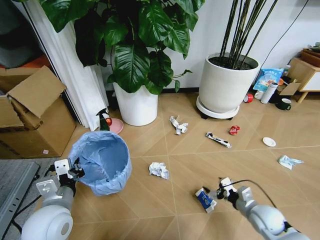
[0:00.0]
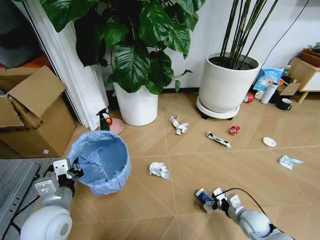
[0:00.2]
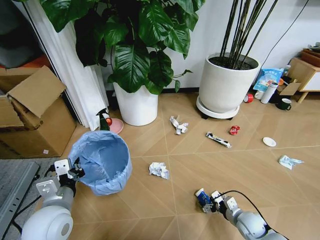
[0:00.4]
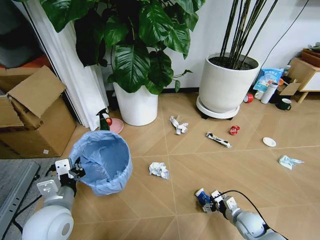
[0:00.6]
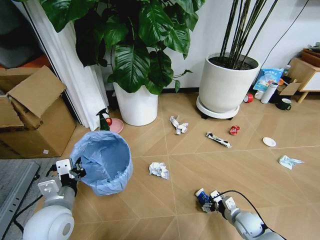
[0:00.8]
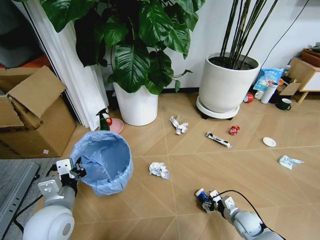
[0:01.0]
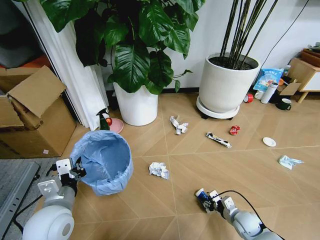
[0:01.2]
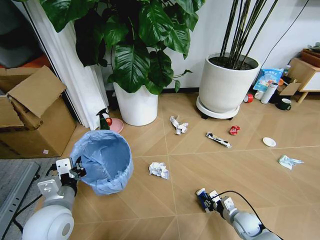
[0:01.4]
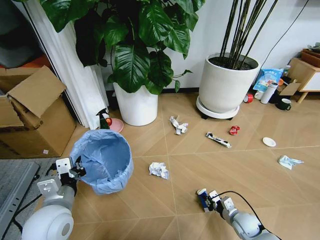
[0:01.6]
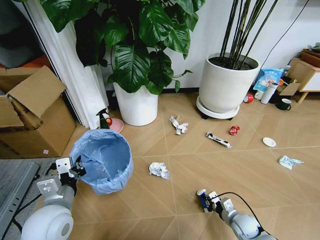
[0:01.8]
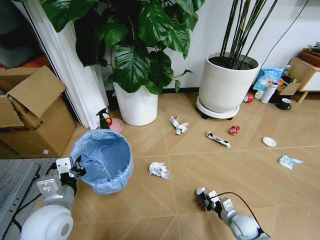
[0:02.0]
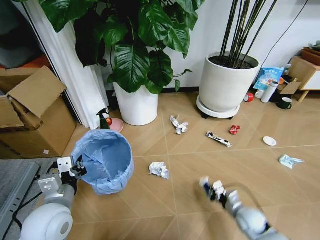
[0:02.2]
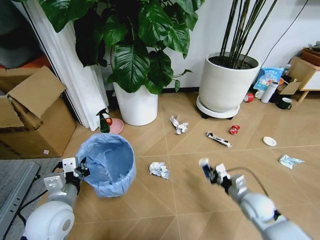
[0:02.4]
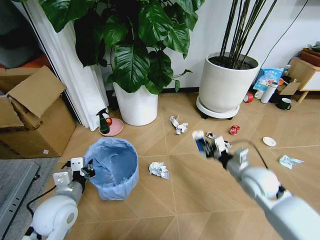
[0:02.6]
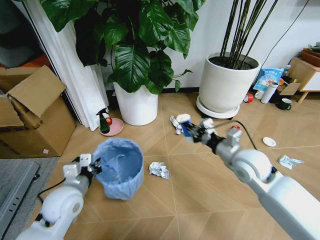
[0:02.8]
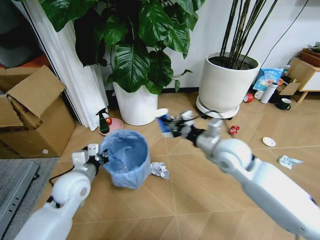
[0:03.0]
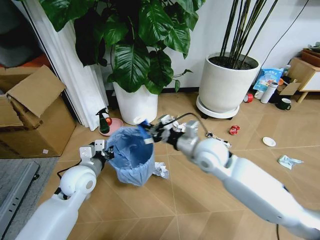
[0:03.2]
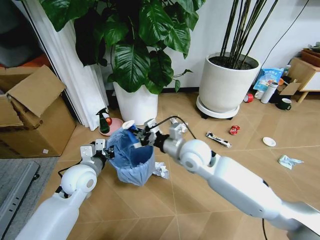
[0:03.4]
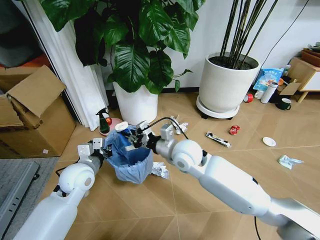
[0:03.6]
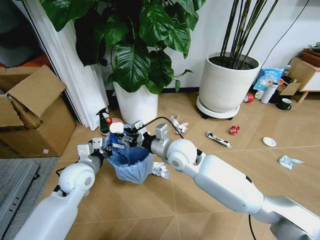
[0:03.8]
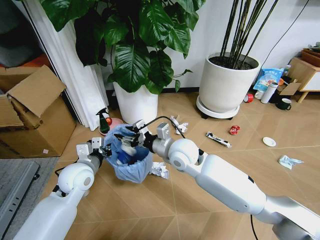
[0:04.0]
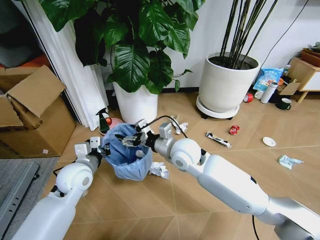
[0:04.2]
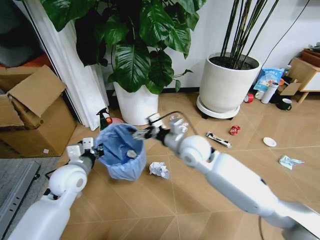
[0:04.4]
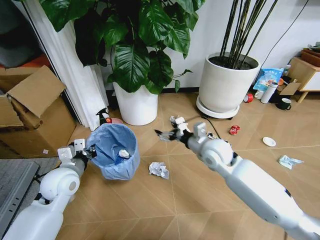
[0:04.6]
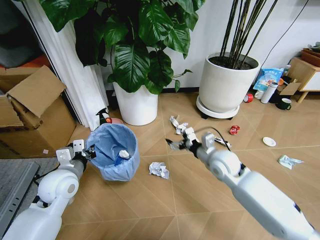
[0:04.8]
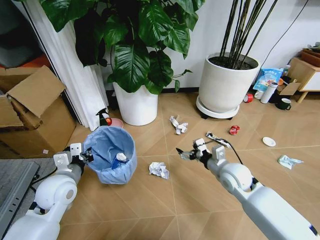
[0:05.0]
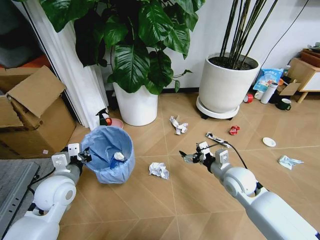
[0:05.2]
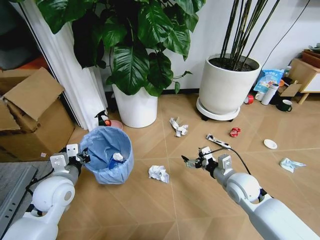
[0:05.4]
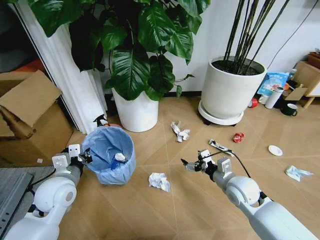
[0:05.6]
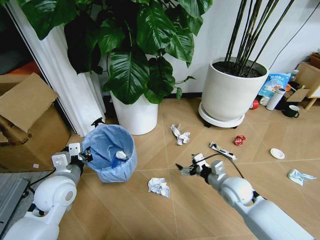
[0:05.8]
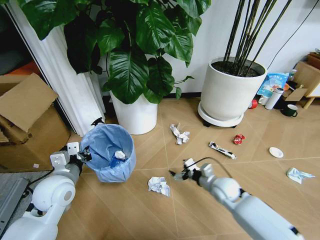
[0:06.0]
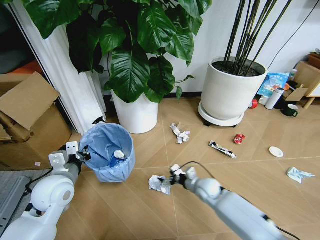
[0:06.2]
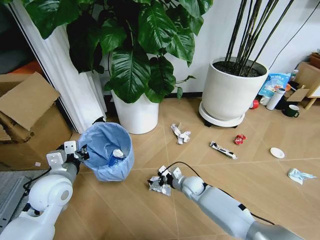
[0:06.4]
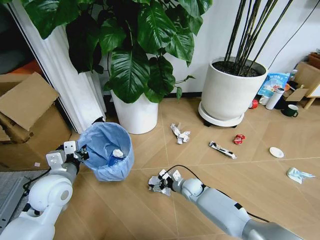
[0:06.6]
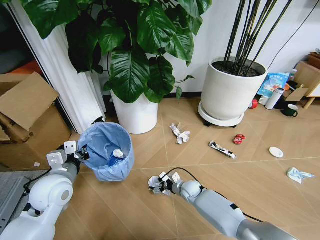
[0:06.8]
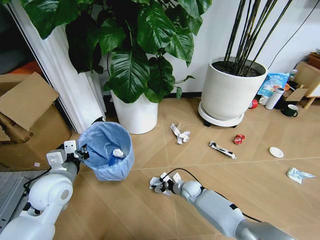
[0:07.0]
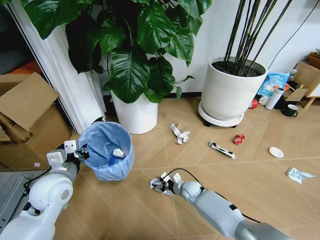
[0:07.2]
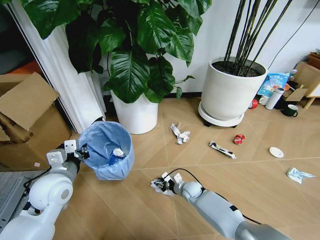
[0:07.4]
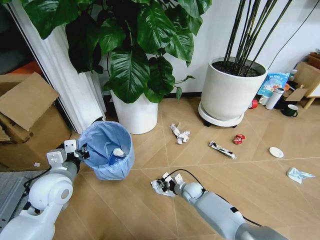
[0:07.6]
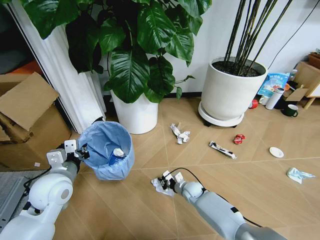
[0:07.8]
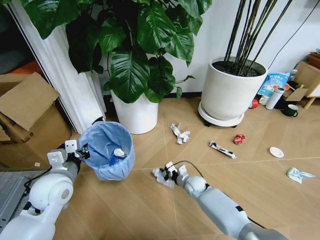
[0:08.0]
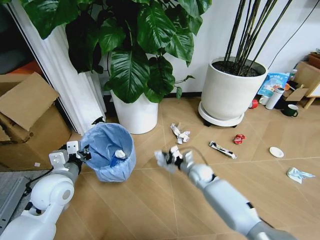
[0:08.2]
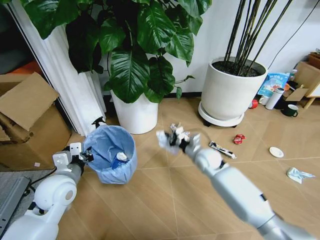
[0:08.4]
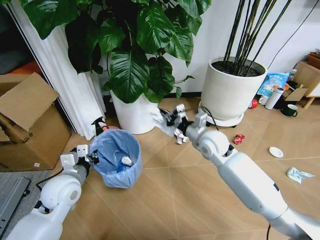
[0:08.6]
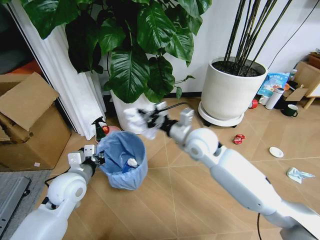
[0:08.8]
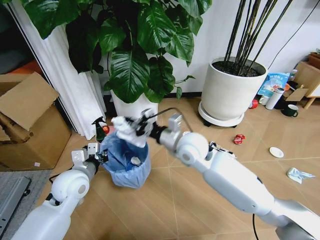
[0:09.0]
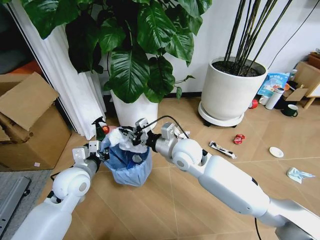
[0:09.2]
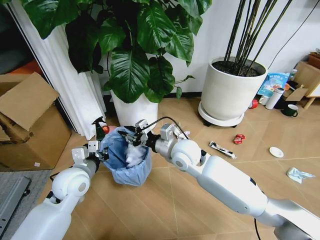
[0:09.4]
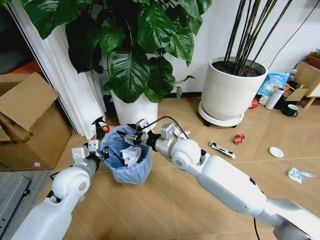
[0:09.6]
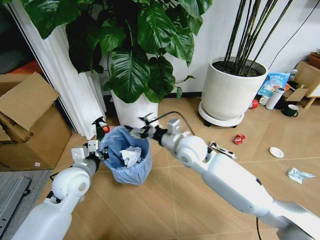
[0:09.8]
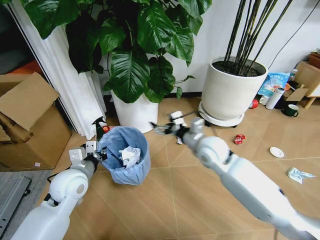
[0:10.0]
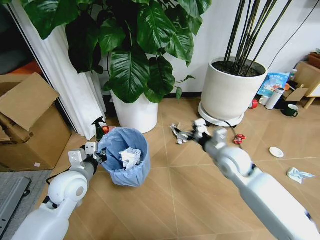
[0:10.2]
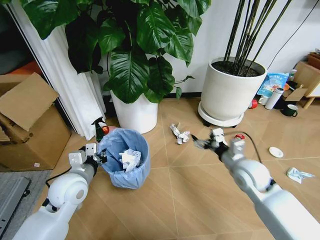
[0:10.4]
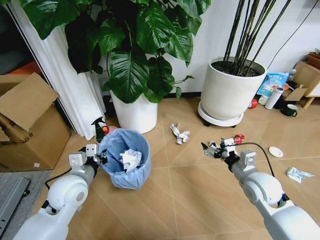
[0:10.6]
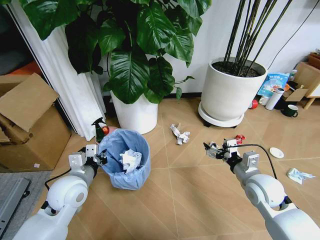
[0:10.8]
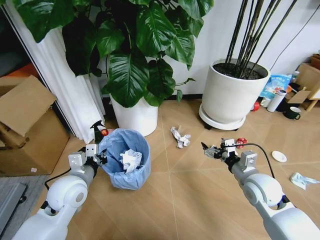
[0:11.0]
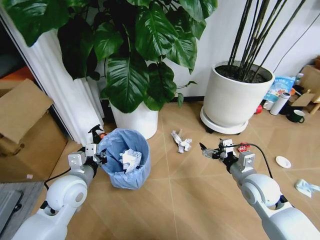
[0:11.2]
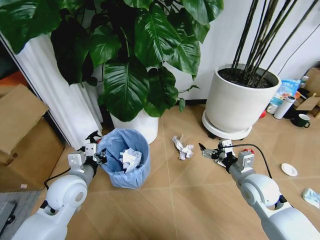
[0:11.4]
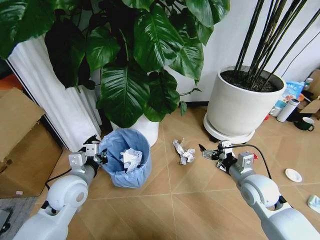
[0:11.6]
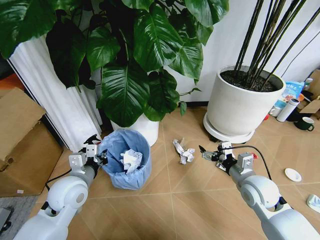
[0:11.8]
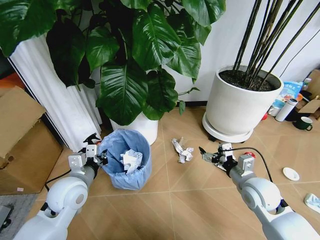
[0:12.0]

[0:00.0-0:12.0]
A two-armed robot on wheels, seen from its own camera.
Task of the whole recording: Pick up the trash bin and place the garbage on the floor into it.
0:00.0 to 0:01.6: The right gripper travels downward by some 10 cm, and closes.
0:01.6 to 0:03.0: The right gripper shifts some 35 cm upward and to the left. The left gripper is displaced forward by roughly 10 cm.
0:03.0 to 0:04.4: The right gripper is displaced to the left by roughly 10 cm, and opens its fingers.
0:04.4 to 0:06.0: The right gripper is displaced downward and to the right by roughly 25 cm.
0:06.0 to 0:07.6: The right gripper travels downward and to the left by roughly 15 cm, and closes up.
0:07.6 to 0:09.0: The right gripper shifts about 35 cm upward.
0:09.0 to 0:10.4: The right gripper travels to the right by about 20 cm, and opens up.

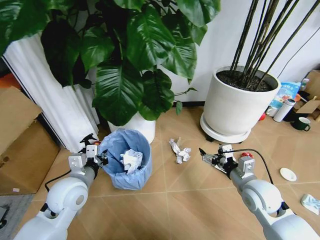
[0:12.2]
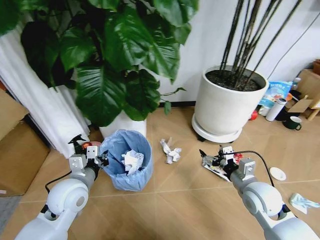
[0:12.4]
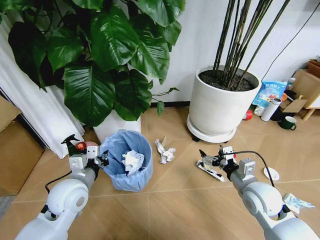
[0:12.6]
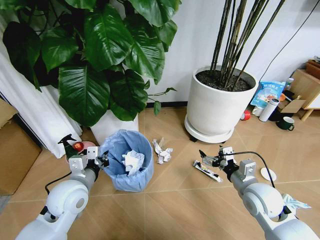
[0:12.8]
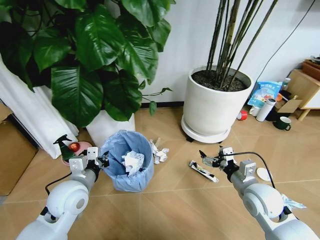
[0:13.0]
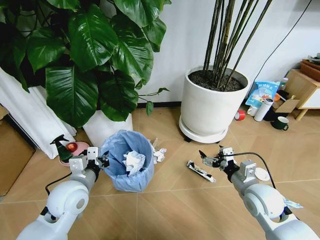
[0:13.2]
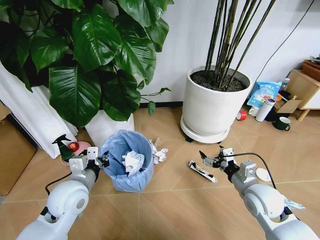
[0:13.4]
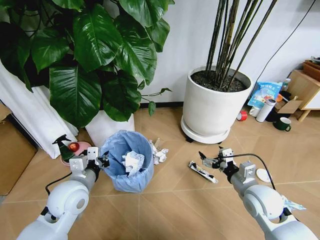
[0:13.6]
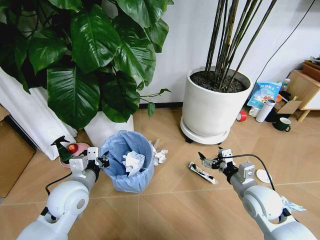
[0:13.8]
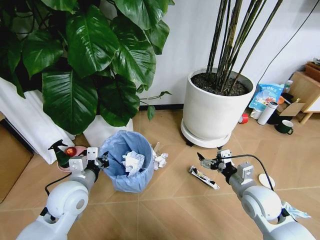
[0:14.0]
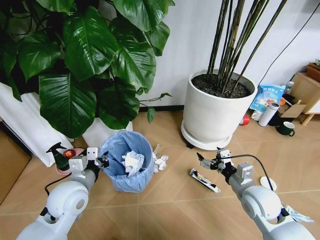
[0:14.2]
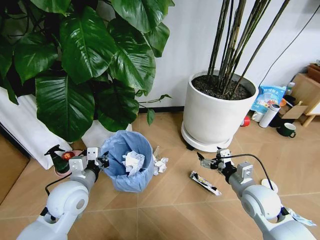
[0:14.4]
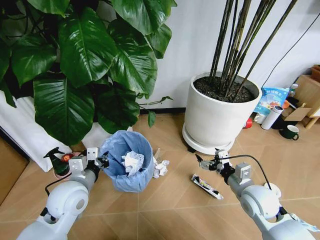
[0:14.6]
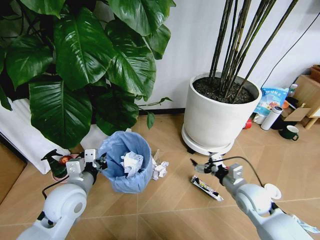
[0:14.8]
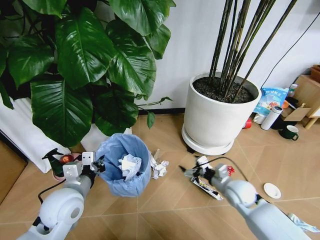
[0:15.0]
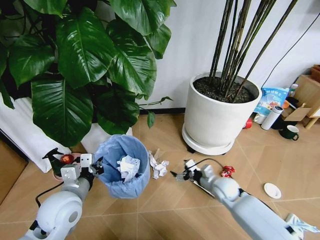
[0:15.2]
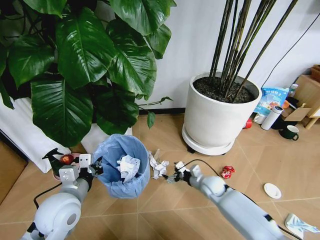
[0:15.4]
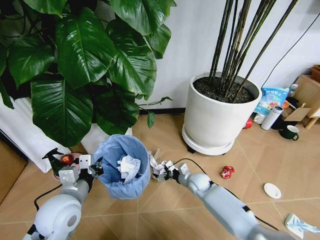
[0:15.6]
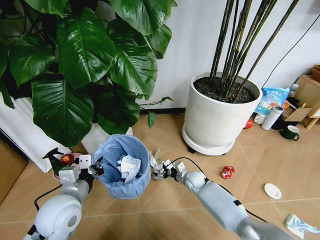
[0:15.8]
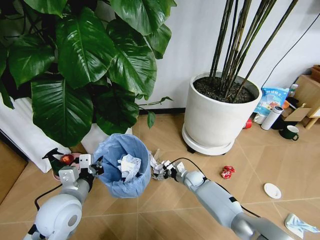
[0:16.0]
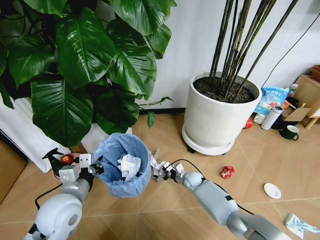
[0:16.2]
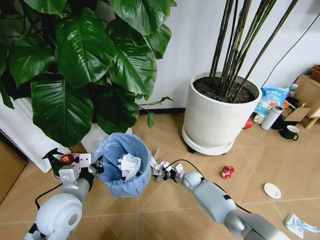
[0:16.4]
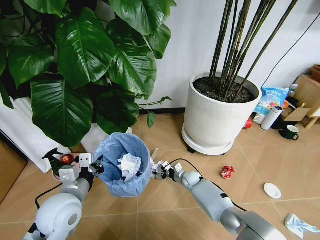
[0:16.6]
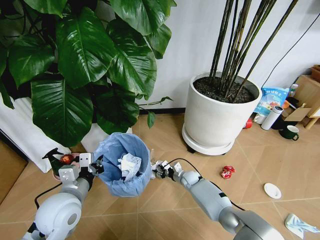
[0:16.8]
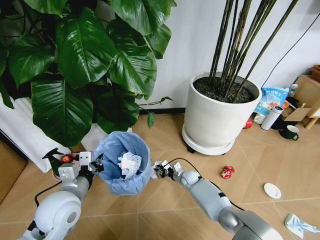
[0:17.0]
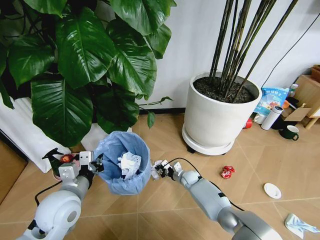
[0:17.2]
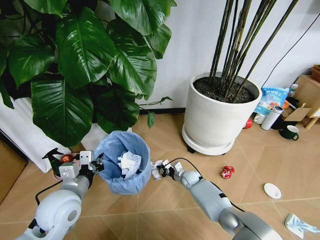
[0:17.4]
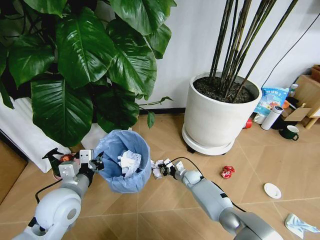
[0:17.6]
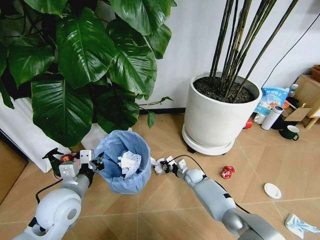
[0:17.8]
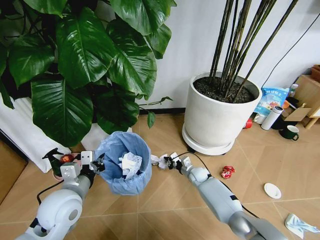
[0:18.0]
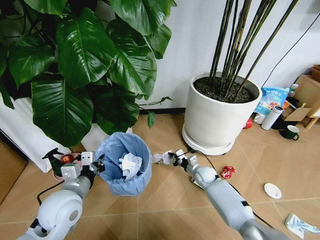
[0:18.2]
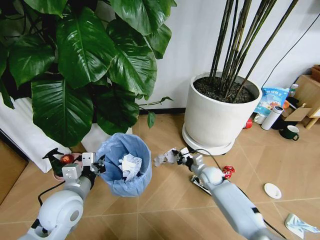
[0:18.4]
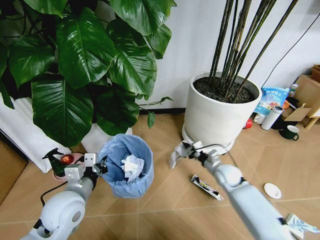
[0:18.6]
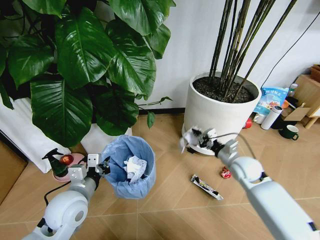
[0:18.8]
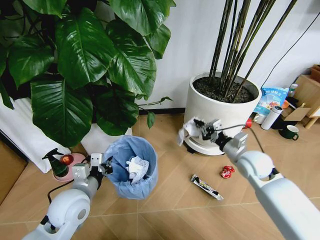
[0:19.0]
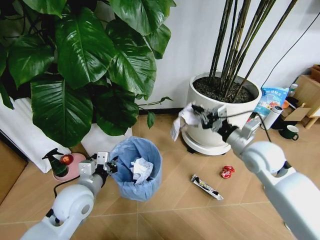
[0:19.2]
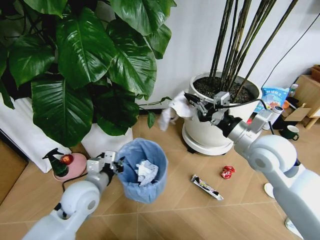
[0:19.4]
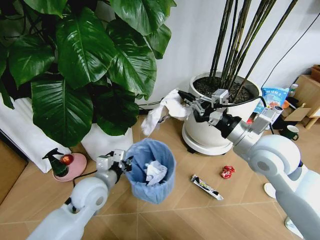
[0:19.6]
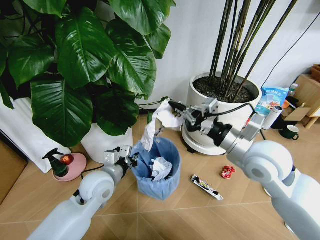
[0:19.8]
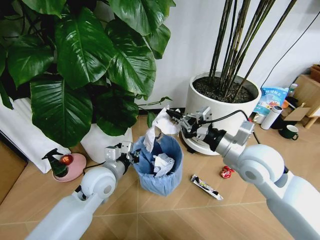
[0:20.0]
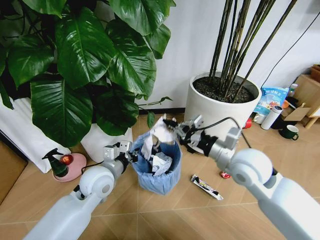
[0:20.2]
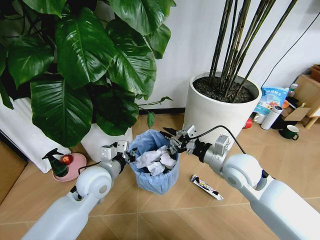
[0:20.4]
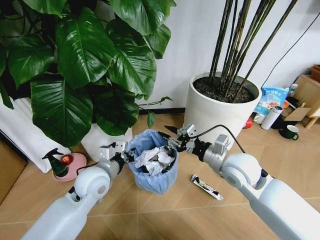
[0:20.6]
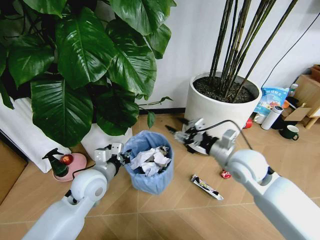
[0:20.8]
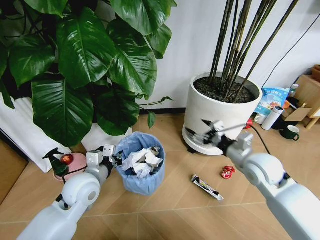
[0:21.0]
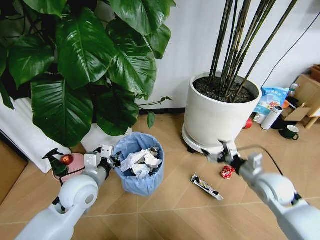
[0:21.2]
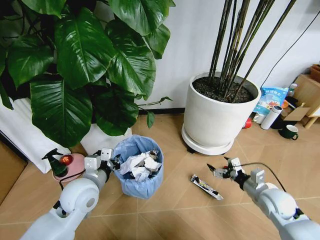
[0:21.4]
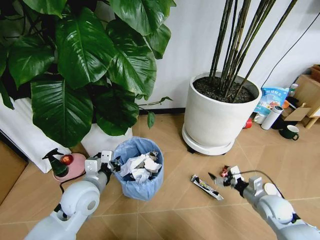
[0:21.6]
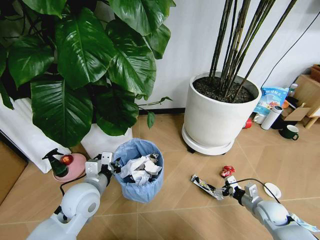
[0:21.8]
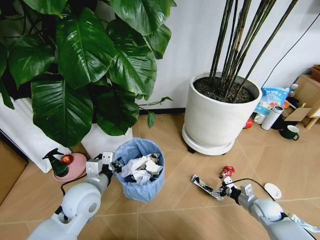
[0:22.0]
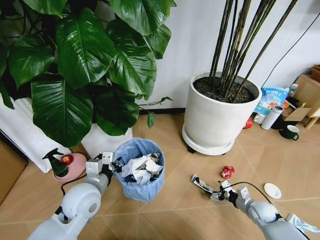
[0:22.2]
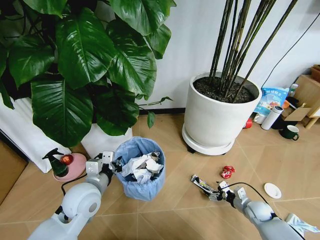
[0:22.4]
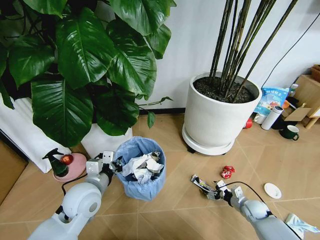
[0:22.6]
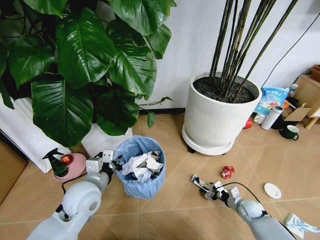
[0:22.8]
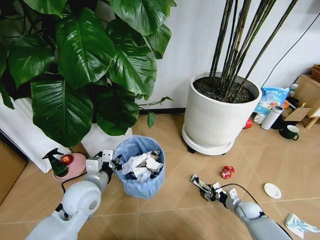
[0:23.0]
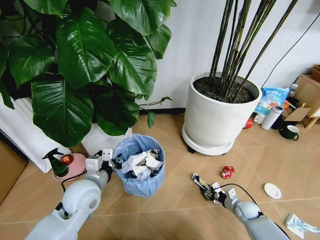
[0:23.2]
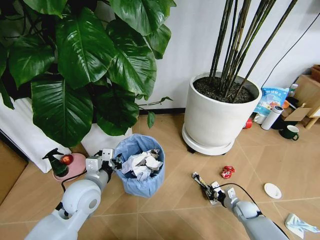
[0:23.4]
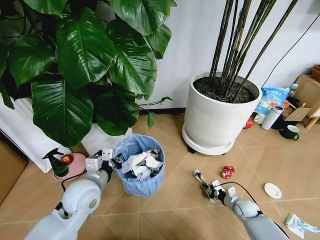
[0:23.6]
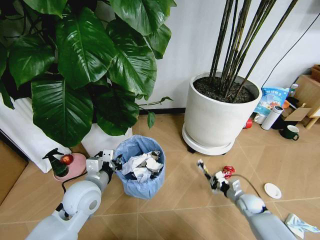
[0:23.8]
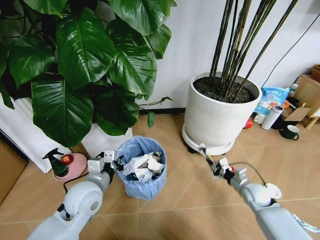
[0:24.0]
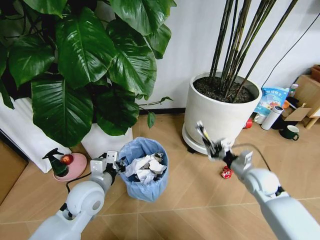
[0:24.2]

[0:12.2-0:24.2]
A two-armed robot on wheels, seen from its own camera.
Task of the whole recording: Pick up the trash bin and place the garbage on the floor into it.
0:13.8 to 0:15.2: The right gripper goes approximately 15 cm downward and forward.
0:15.2 to 0:16.6: The right gripper heads downward, forward and to the left, covering approximately 20 cm.
0:16.6 to 0:18.2: The right gripper shifts about 10 cm to the right and upward, and closes.
0:18.2 to 0:19.8: The left gripper goes about 10 cm to the right and forward. Meanwhile the right gripper travels upward and backward by roughly 40 cm.
0:19.8 to 0:21.2: The right gripper moves downward and to the right, approximately 20 cm, and opens up.
0:21.2 to 0:22.6: The right gripper travels downward by some 25 cm.
0:22.6 to 0:24.2: The right gripper goes some 15 cm upward, and closes.
